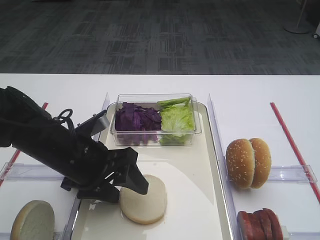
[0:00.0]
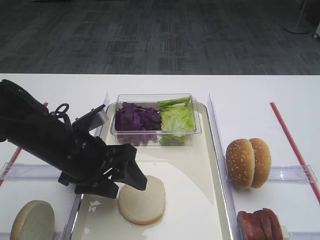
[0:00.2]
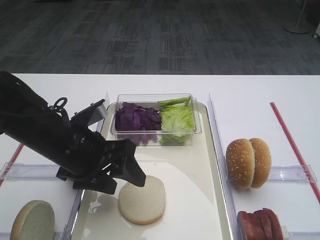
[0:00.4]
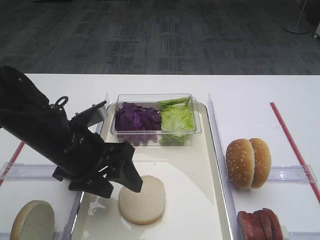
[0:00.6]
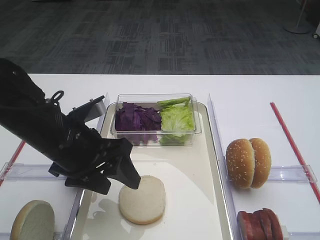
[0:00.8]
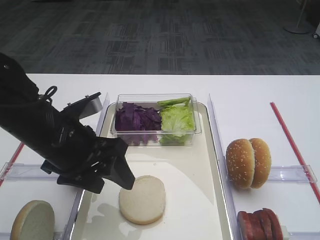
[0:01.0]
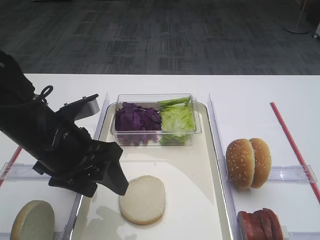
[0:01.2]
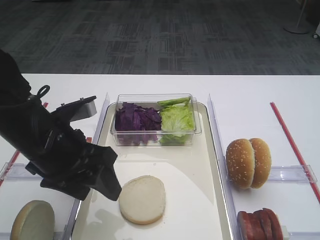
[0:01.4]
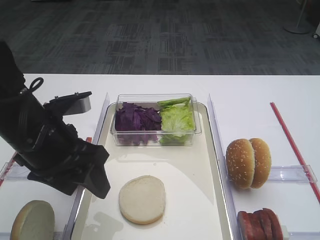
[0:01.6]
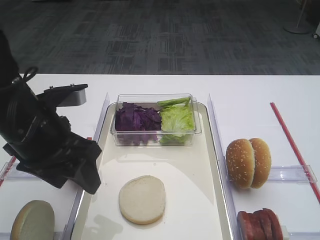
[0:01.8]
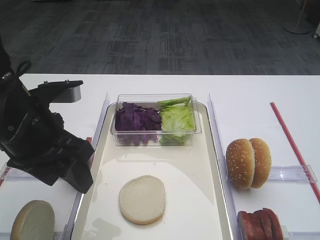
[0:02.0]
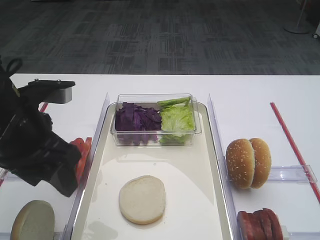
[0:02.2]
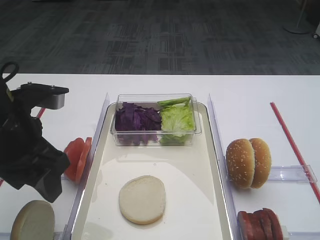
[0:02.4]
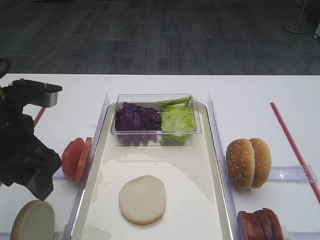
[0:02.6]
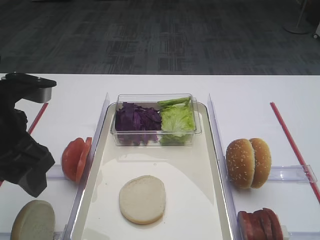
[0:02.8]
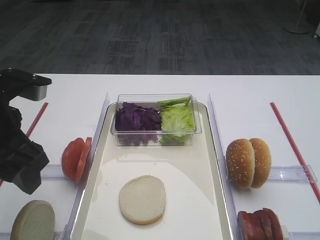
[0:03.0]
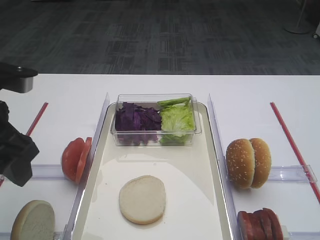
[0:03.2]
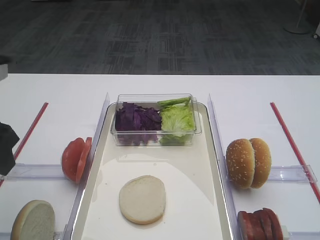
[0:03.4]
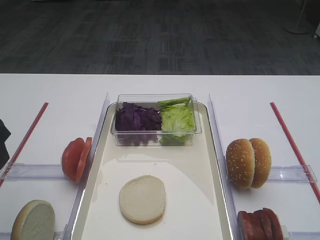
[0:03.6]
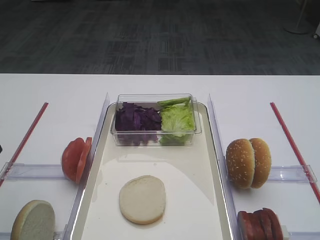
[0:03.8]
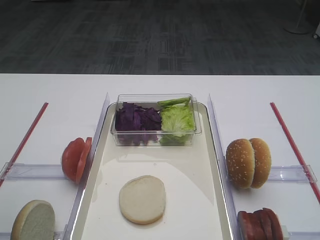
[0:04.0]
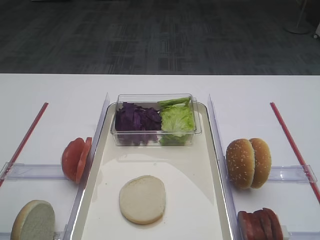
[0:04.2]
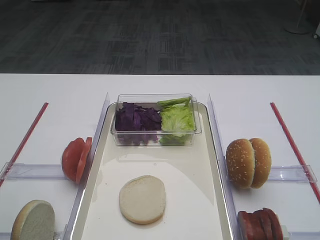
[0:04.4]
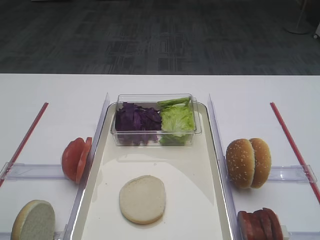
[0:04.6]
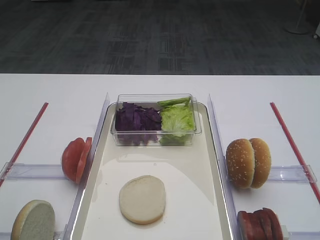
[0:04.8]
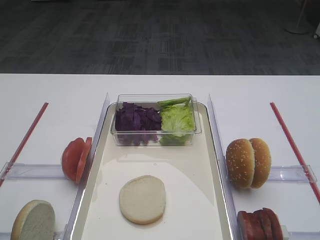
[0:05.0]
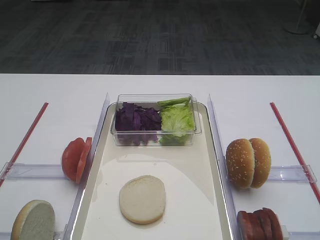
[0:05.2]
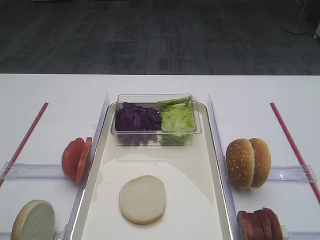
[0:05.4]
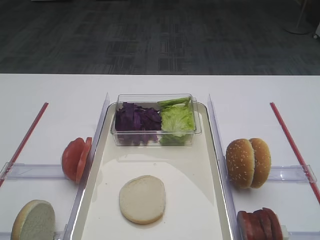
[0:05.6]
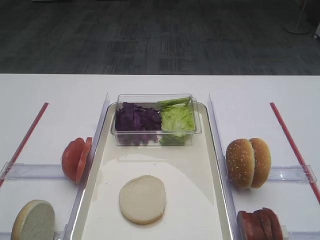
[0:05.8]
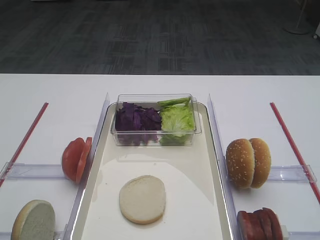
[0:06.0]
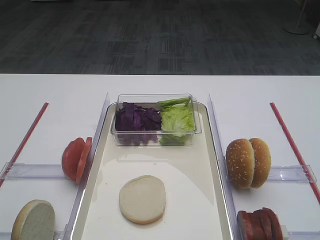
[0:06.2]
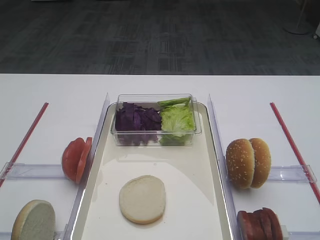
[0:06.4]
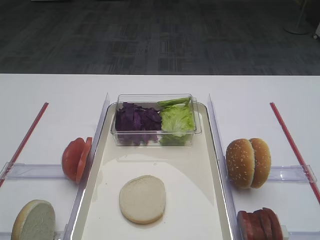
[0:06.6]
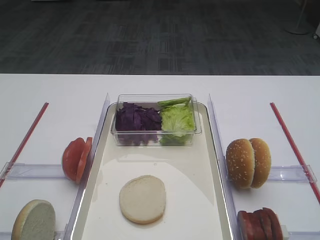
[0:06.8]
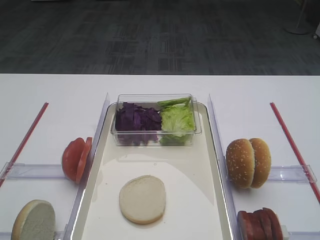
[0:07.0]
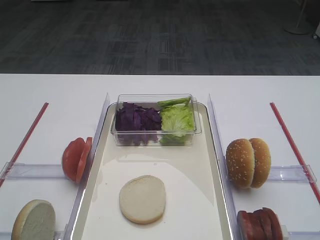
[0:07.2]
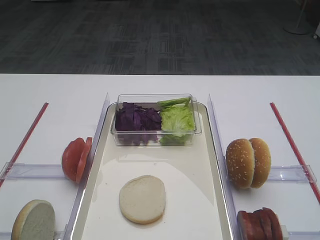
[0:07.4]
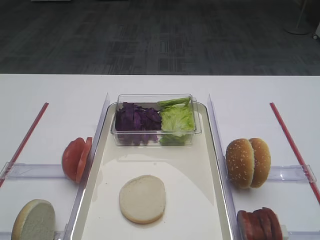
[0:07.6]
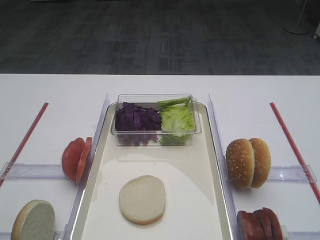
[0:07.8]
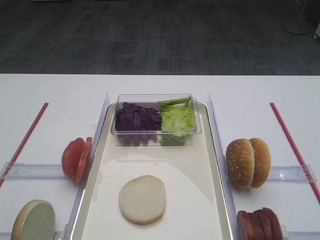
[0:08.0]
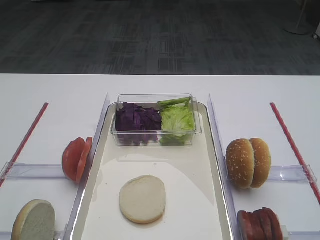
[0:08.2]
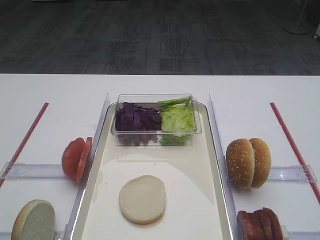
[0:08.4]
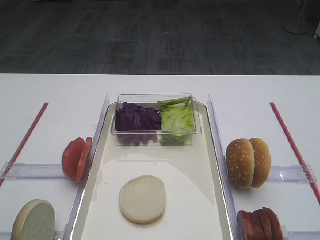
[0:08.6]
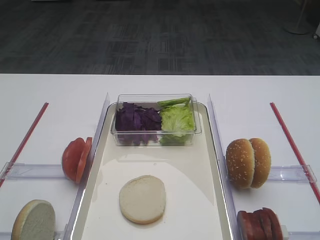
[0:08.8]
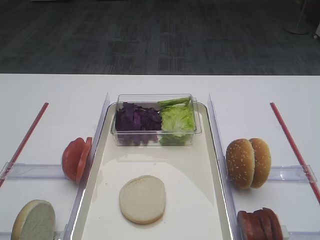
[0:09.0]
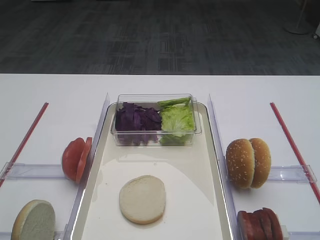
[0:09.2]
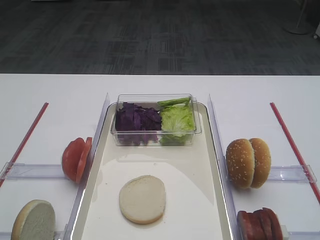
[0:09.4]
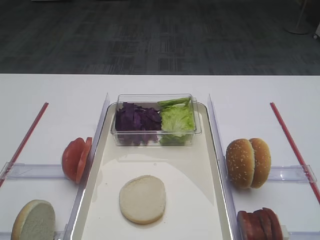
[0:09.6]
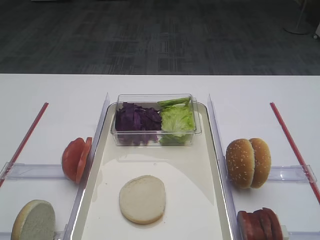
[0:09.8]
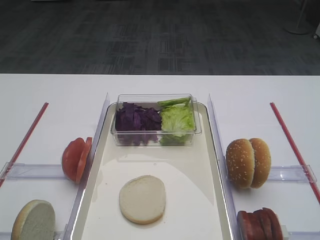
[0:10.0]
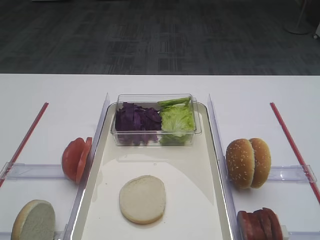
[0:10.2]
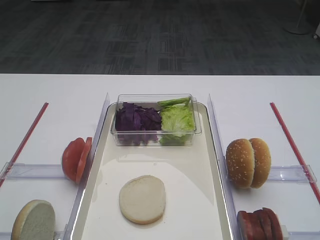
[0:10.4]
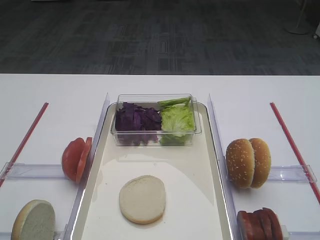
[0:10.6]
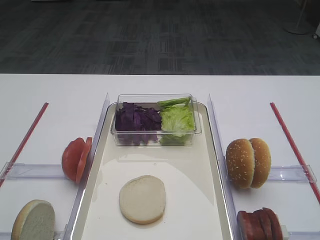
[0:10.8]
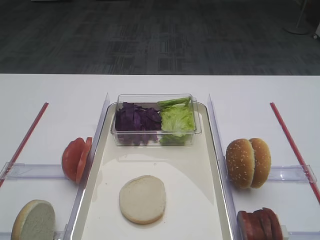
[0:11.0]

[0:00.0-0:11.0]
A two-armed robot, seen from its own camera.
0:00.0 to 0:01.6: The left gripper travels upward by approximately 5 cm.
0:01.6 to 0:03.2: The left gripper shifts roughly 10 cm to the left and upward.
0:03.2 to 0:04.8: The left gripper travels backward and to the left by approximately 15 cm.
0:09.4 to 0:11.0: Both grippers stay about where they are.

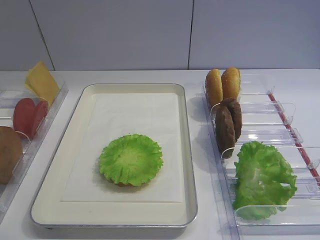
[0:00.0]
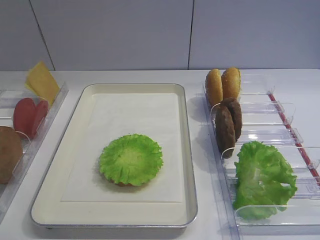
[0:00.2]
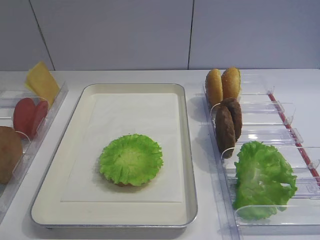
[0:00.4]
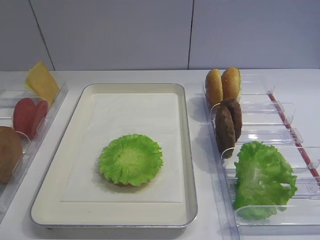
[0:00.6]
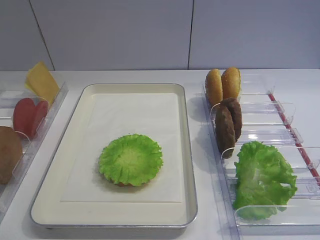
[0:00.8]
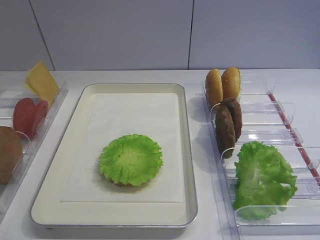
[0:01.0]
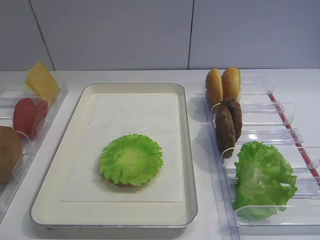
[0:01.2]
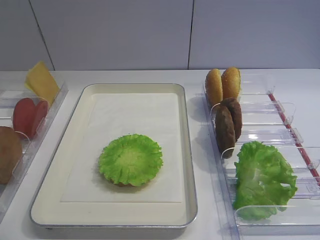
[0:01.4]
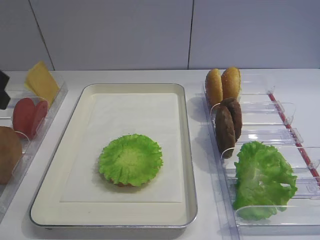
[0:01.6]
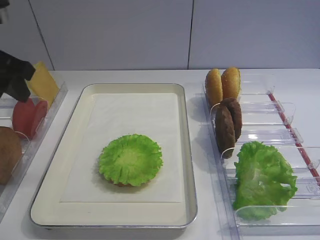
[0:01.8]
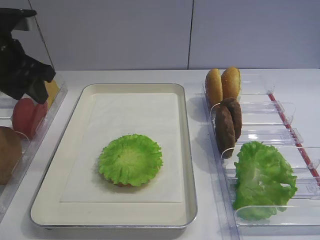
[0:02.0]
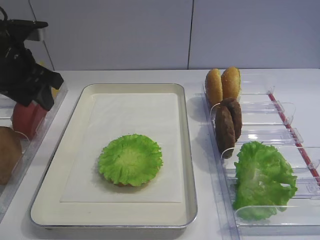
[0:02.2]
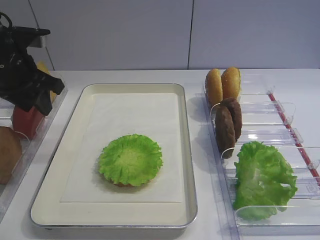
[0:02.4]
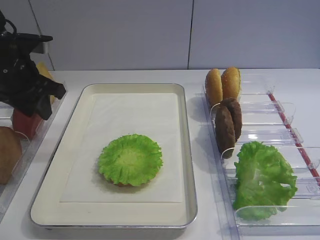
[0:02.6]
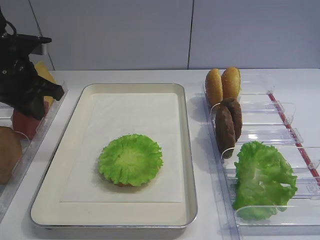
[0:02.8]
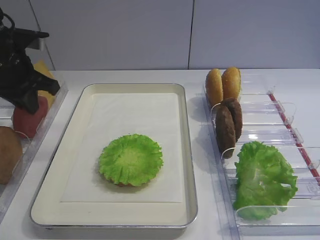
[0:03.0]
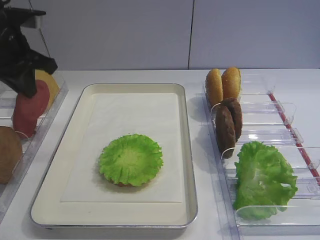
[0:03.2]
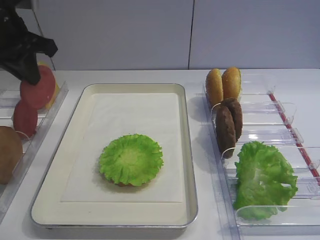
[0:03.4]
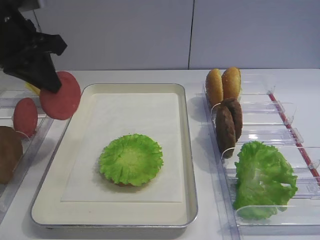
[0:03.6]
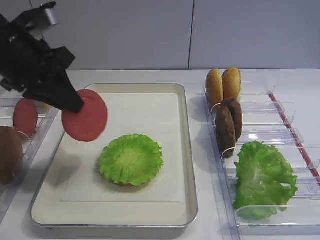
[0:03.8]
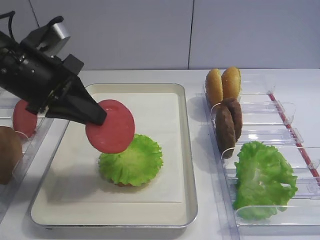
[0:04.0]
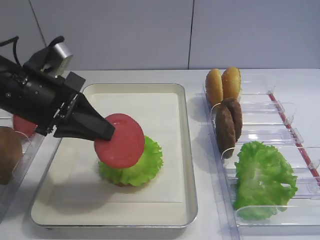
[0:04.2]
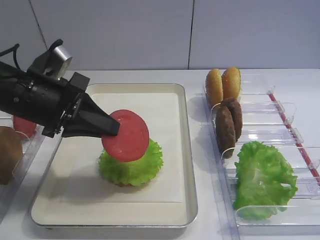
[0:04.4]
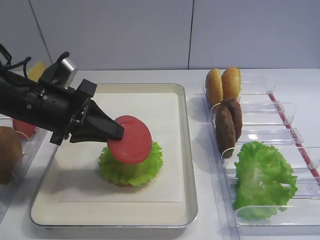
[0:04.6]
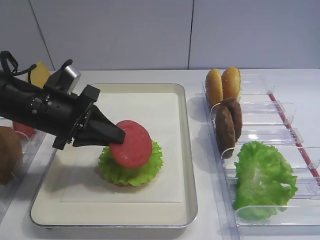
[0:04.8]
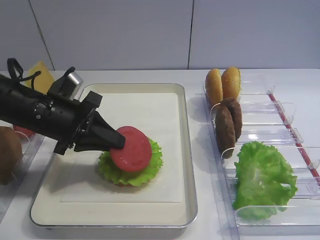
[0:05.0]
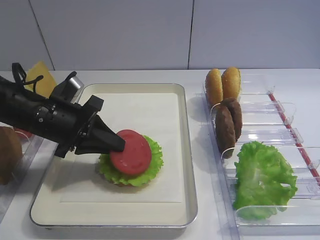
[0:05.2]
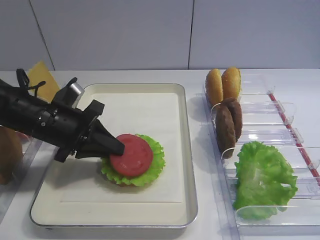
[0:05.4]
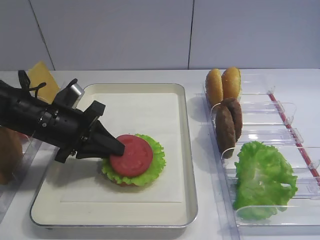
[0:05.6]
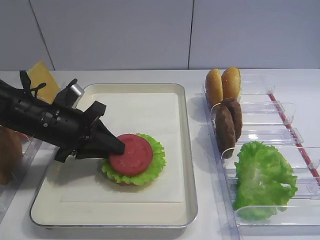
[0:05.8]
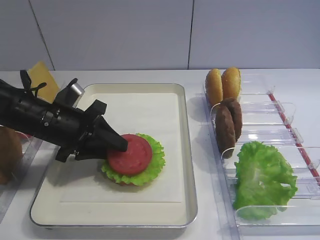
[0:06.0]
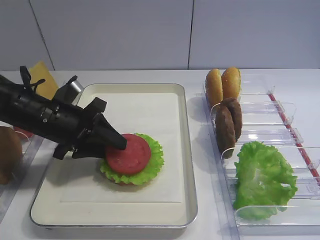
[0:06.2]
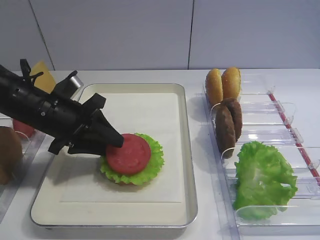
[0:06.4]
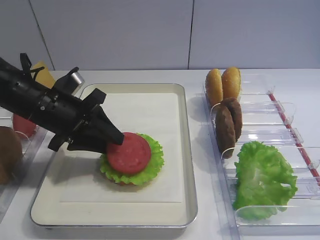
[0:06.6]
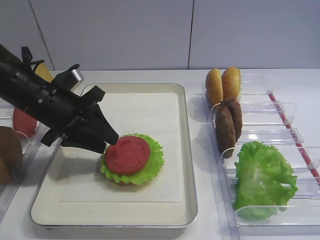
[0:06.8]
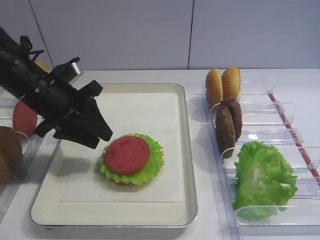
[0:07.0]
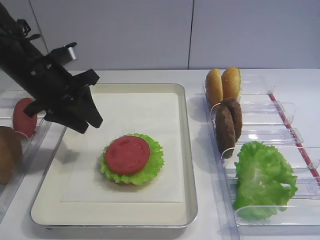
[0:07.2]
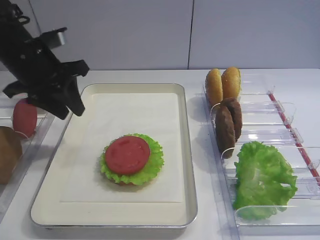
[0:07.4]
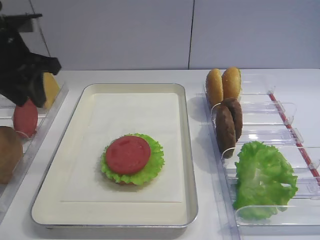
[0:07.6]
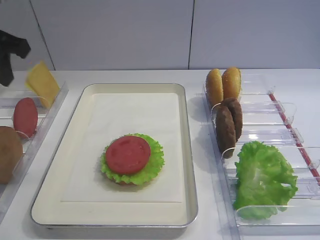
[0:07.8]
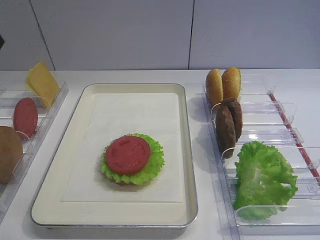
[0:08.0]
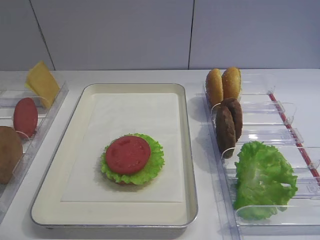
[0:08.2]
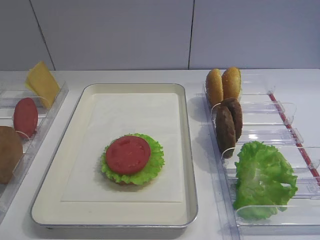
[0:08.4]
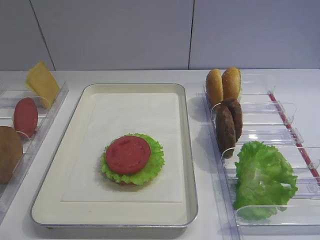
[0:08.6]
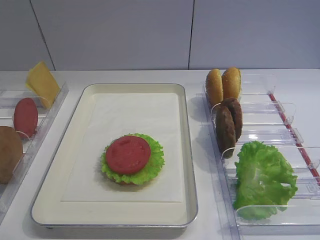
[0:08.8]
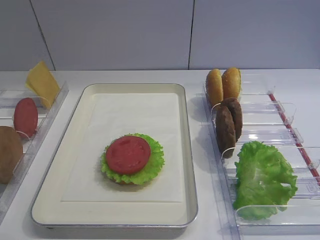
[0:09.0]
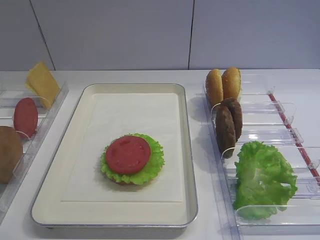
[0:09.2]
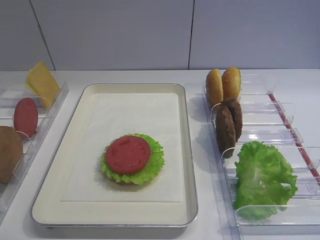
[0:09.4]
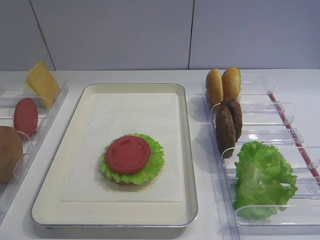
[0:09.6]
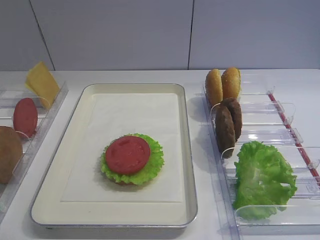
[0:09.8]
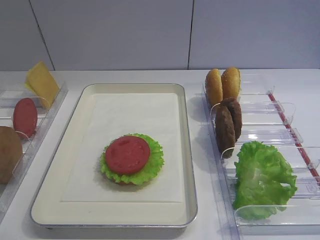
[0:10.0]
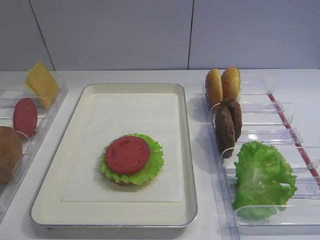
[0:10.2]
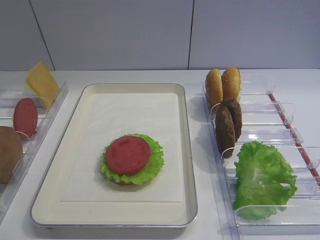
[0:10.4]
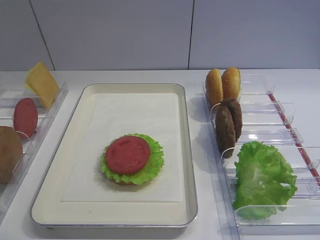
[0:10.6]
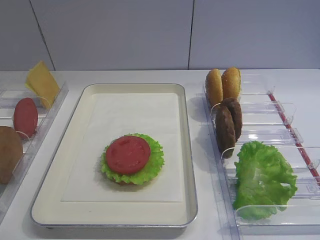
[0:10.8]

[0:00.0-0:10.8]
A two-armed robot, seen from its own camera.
Step, 0:00.0 to 0:03.2: Pick up the tomato slice with the left gripper.
Step, 0:03.4 to 0:07.0: Place the tomato slice on the lettuce leaf with the left gripper.
0:01.6 to 0:03.0: The left gripper moves forward and downward, about 15 cm, and closes.
0:03.0 to 0:04.6: The left gripper is displaced backward and to the right by approximately 10 cm, and travels upward and back again, about 5 cm each way.
0:04.6 to 0:06.2: The left gripper moves downward, about 5 cm, and opens up.
0:06.2 to 0:07.8: The left gripper heads upward and to the left, covering roughly 20 cm.
0:07.8 to 0:09.2: The left gripper shifts roughly 30 cm backward.

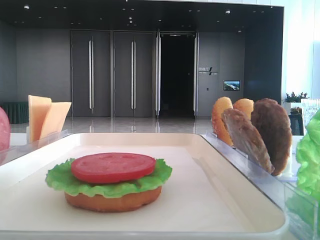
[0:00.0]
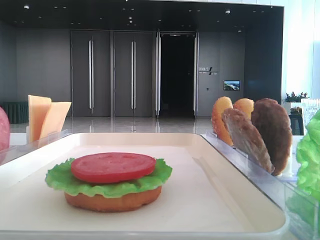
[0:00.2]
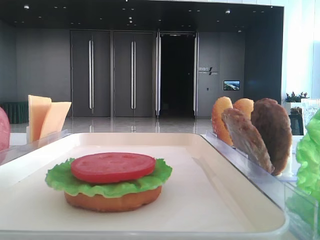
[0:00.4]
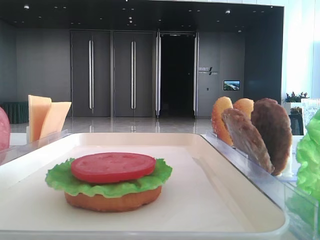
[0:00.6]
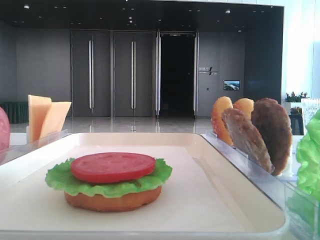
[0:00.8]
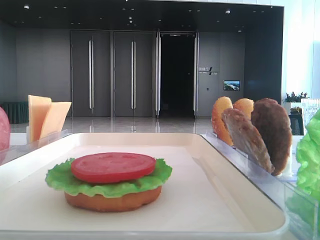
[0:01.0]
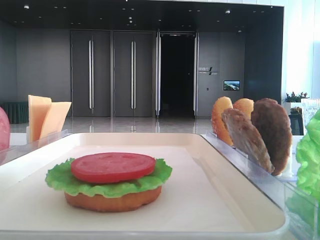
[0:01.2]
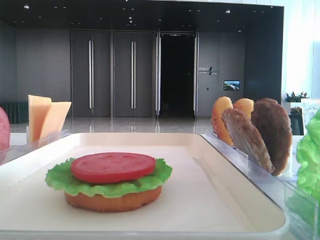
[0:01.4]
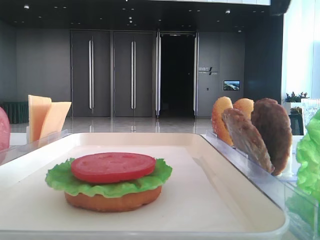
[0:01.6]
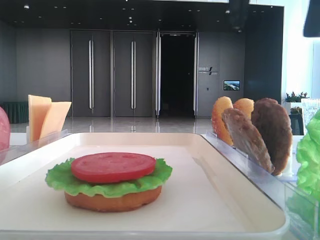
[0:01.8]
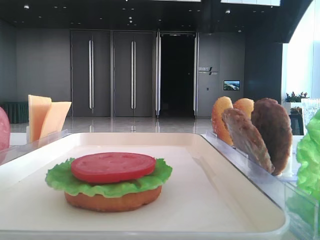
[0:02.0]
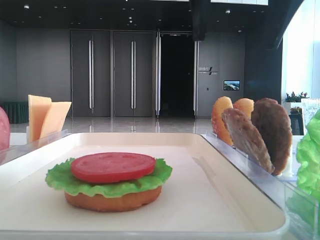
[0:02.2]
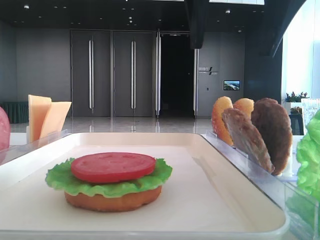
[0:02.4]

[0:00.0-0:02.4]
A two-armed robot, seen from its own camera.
0:01.2 to 0:02.4: The right gripper heads to the left, covering about 15 cm.
